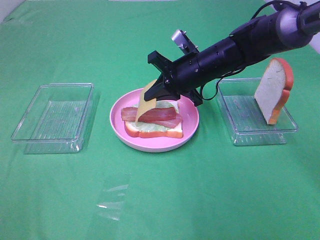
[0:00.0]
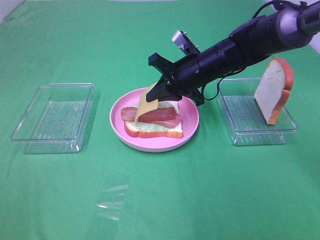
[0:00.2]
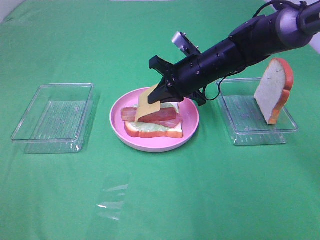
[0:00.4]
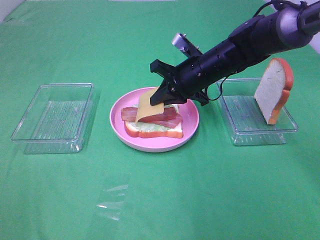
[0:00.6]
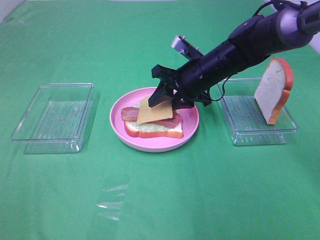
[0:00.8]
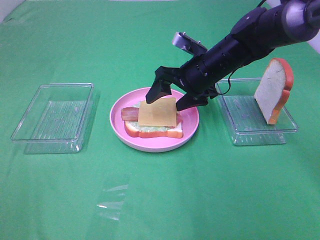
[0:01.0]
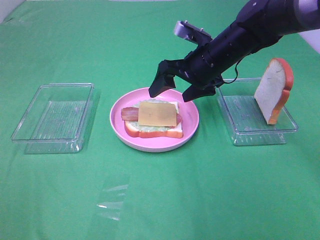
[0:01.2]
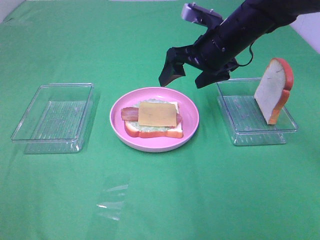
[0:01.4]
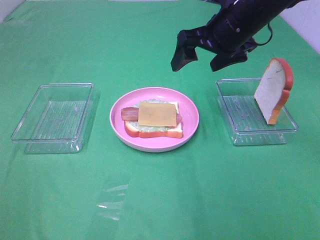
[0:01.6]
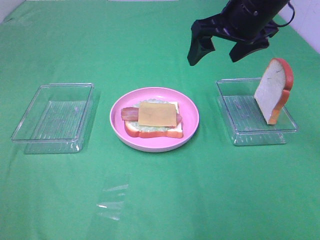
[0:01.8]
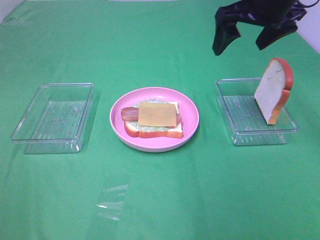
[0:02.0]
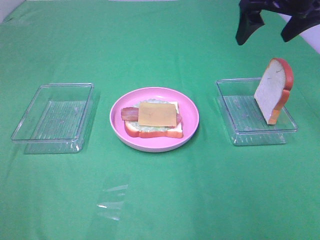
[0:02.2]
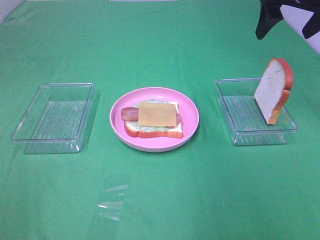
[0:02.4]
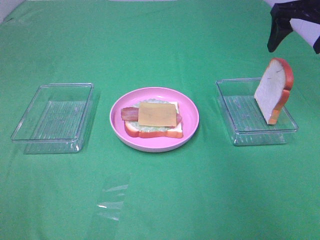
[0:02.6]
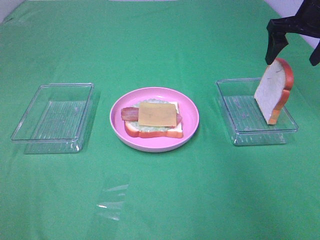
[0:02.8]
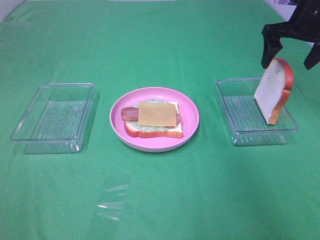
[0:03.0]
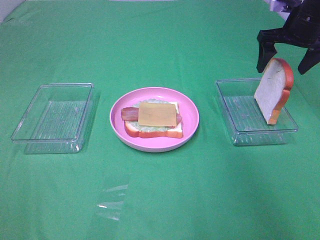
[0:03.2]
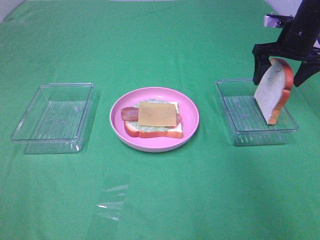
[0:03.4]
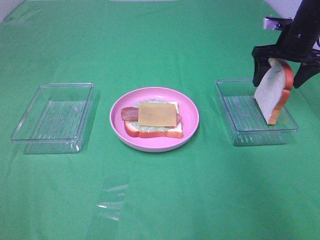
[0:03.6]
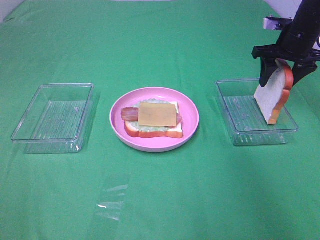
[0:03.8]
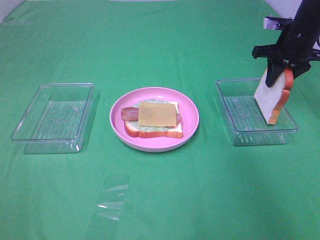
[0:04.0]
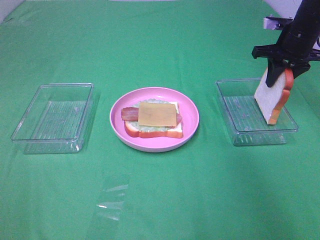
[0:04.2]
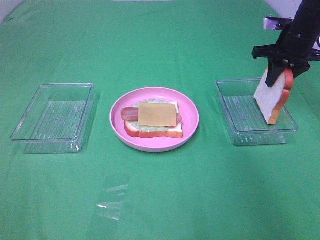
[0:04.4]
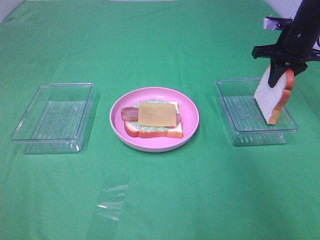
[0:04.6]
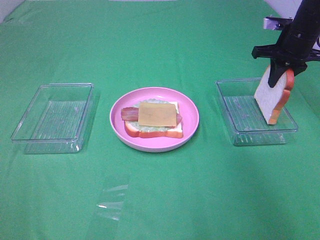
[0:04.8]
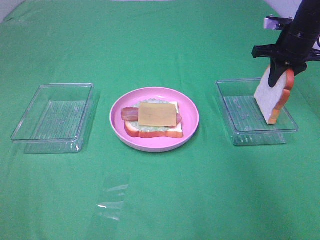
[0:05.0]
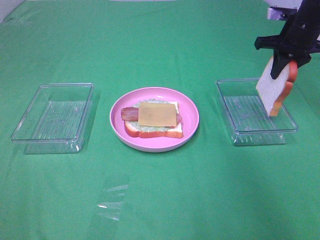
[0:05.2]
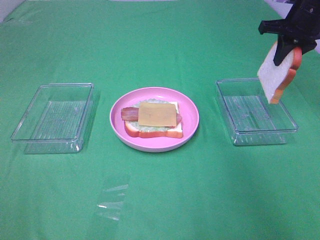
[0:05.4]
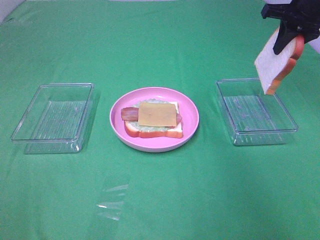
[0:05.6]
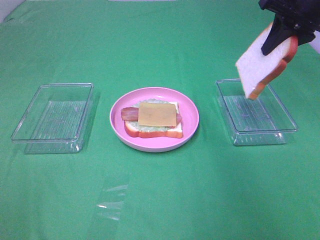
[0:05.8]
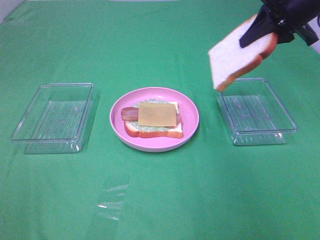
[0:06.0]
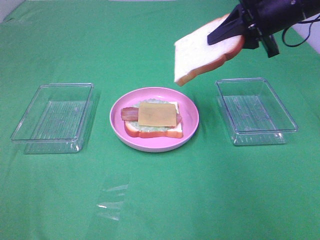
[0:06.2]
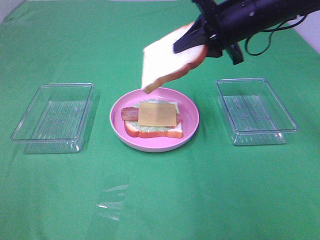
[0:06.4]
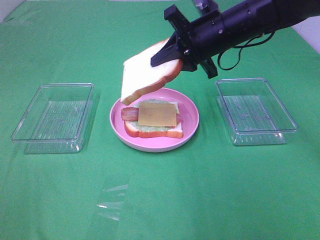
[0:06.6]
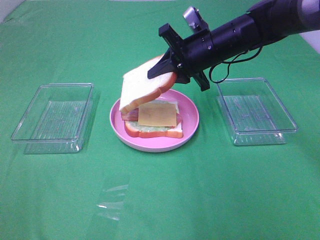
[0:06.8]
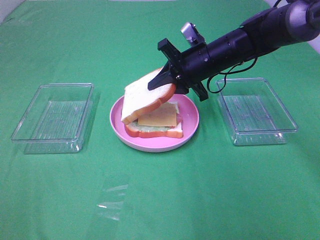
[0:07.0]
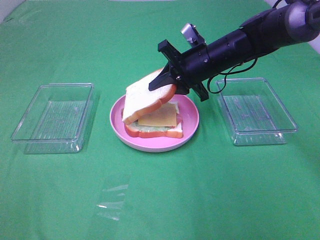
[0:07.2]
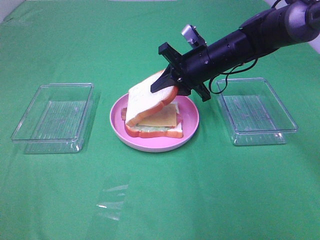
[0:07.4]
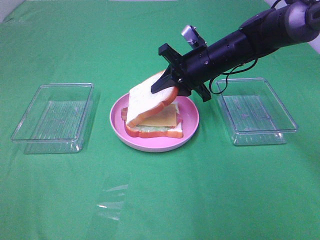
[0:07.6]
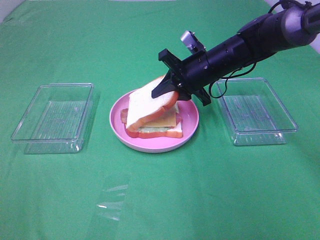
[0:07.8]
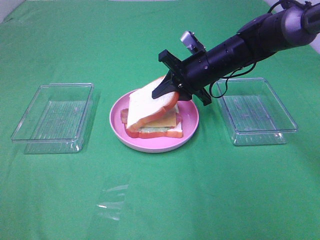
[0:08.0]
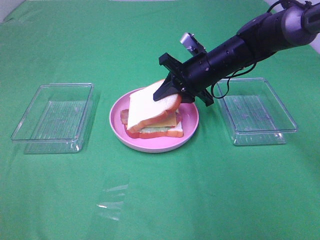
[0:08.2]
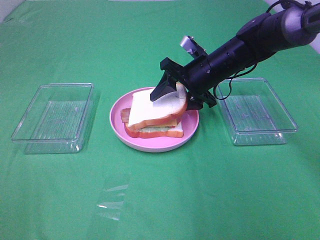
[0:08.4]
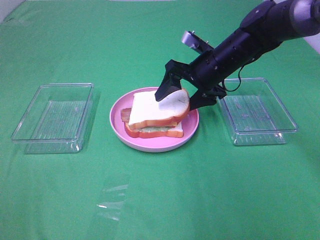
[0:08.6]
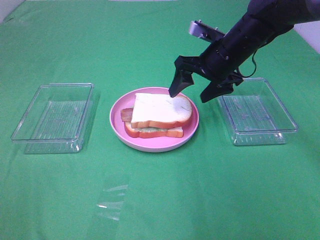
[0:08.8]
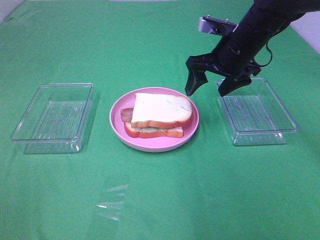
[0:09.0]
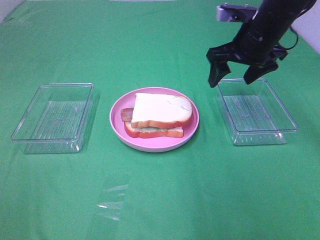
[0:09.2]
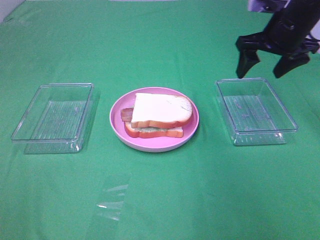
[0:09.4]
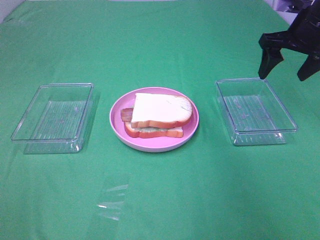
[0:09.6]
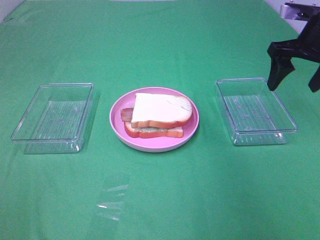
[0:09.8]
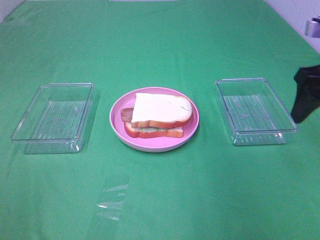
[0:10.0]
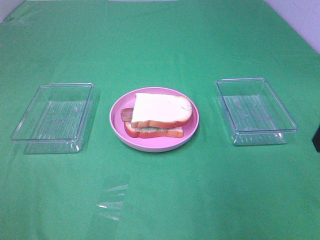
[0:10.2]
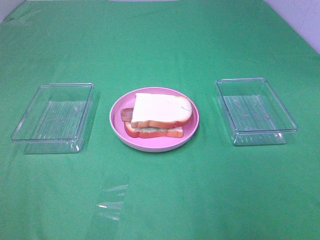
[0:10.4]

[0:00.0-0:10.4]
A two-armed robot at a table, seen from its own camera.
Task of the whole recording: Make sandwiches.
Step, 0:01.4 to 0:04.8: Right hand:grab the bread slice.
Step, 0:05.0 to 0:08.8: Right hand:place the bread slice on the cheese slice.
0:00.0 to 0:01.4: The right gripper moves upward, about 5 cm, and opens.
0:01.4 to 0:03.0: The right gripper moves to the right, about 15 cm.
0:03.0 to 0:04.4: The right gripper heads downward, covering approximately 5 cm, and closes up.
0:04.4 to 0:06.0: The right gripper goes some 15 cm upward, backward and to the left.
0:06.0 to 0:07.4: The right gripper shifts about 20 cm downward and to the left.
0:07.4 to 0:09.0: The right gripper changes place by some 5 cm, and opens up.
0:09.0 to 0:10.4: The right gripper travels backward and to the right by some 30 cm.

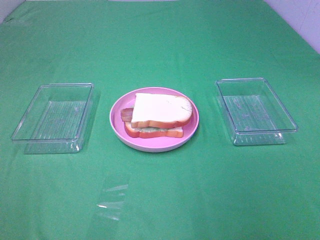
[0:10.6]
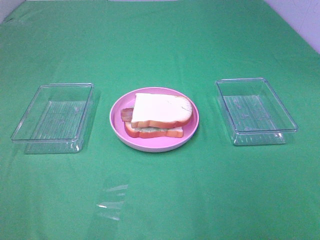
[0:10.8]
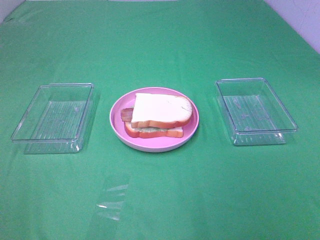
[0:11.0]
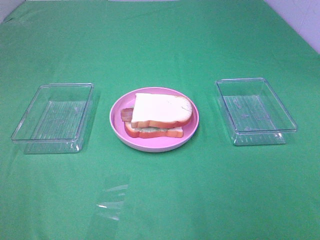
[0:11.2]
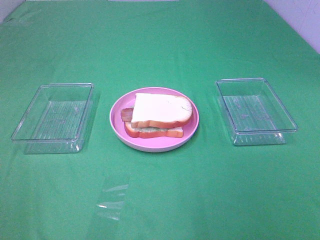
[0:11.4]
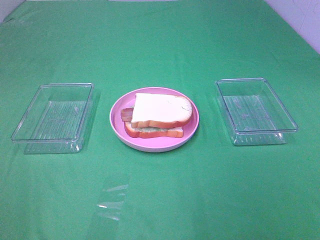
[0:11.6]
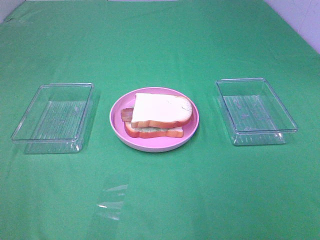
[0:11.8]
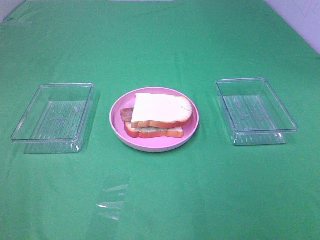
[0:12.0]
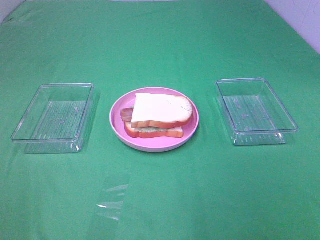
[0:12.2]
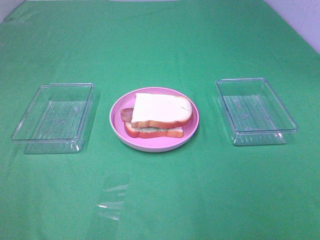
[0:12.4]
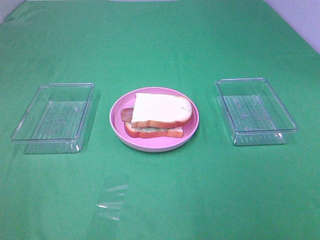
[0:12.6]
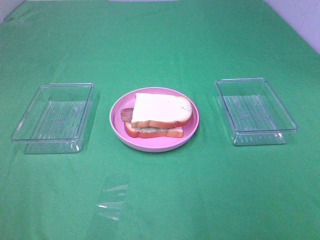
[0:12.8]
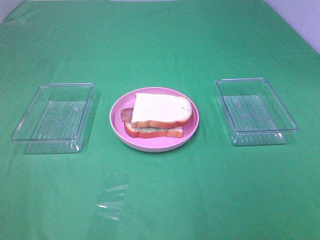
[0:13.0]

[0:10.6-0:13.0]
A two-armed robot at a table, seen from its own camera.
Task of the whole recording: Make sandwiches.
0:11.8 to 0:13.0: Both grippers stay put.

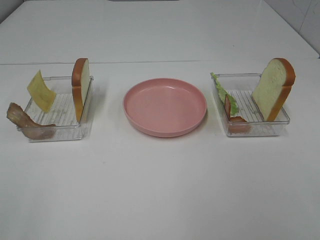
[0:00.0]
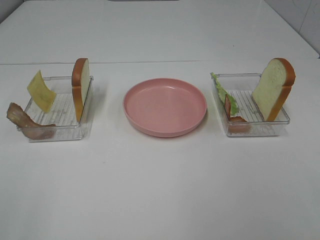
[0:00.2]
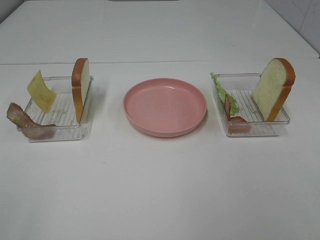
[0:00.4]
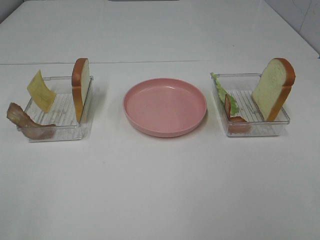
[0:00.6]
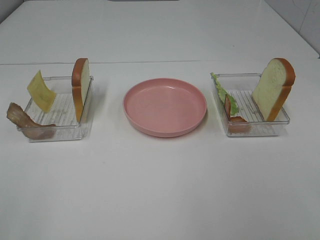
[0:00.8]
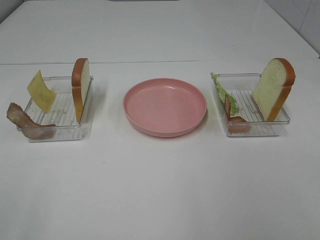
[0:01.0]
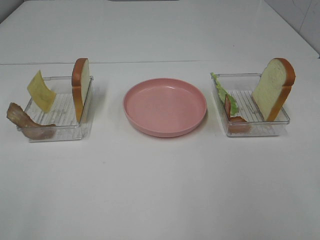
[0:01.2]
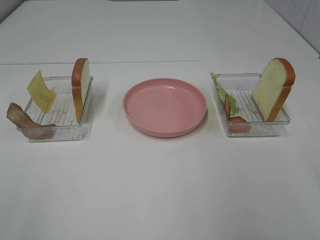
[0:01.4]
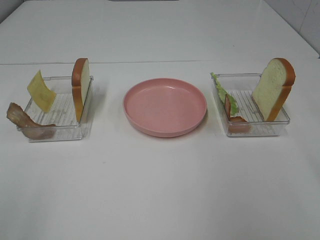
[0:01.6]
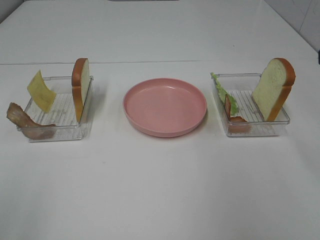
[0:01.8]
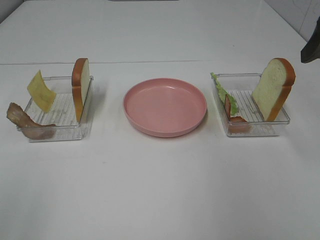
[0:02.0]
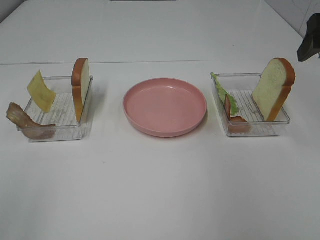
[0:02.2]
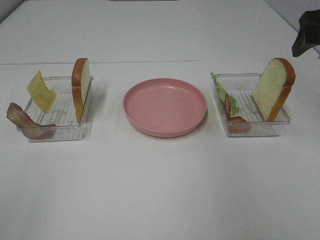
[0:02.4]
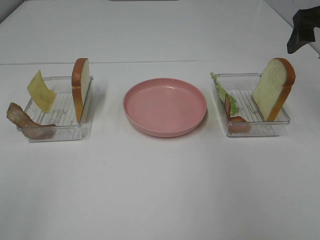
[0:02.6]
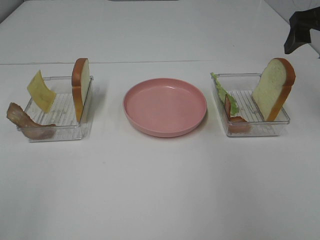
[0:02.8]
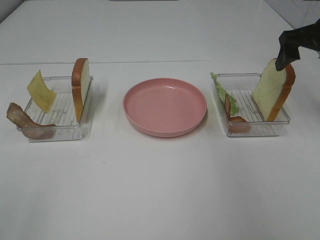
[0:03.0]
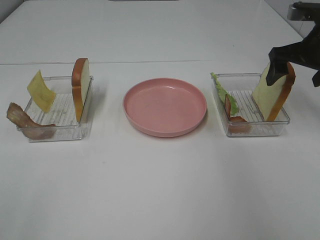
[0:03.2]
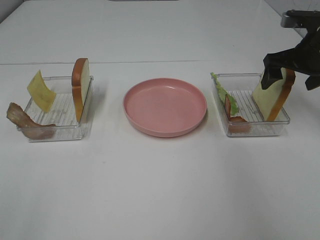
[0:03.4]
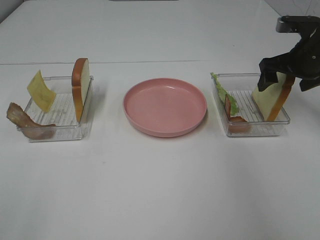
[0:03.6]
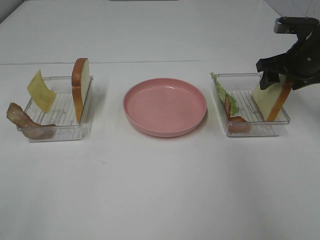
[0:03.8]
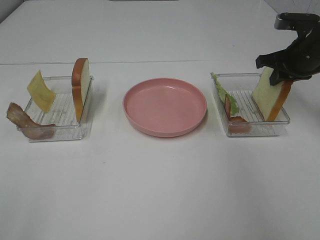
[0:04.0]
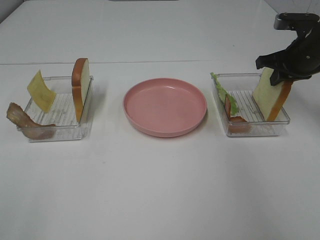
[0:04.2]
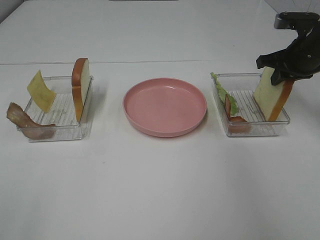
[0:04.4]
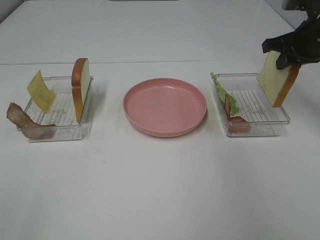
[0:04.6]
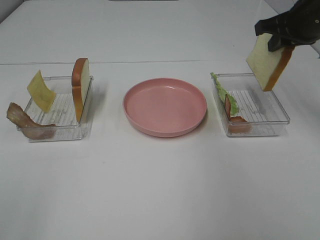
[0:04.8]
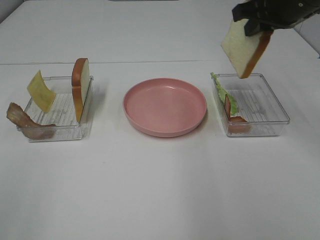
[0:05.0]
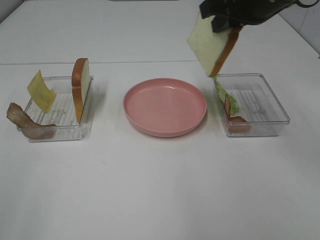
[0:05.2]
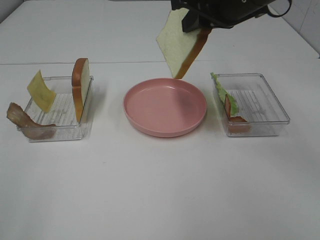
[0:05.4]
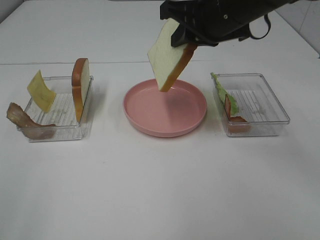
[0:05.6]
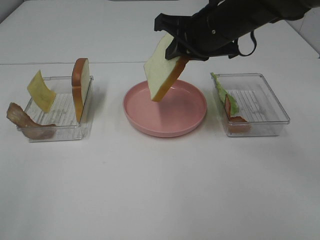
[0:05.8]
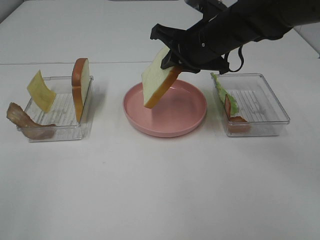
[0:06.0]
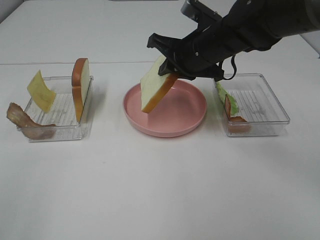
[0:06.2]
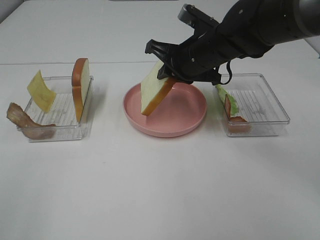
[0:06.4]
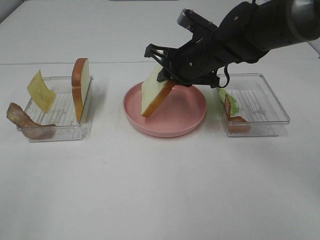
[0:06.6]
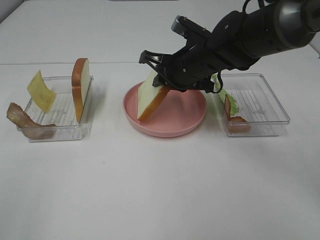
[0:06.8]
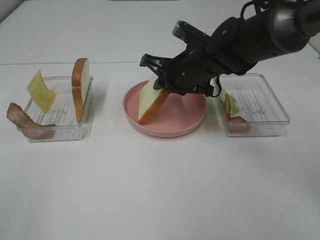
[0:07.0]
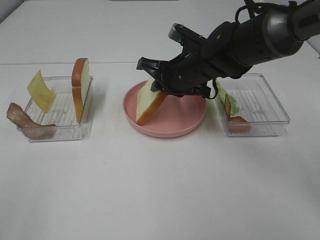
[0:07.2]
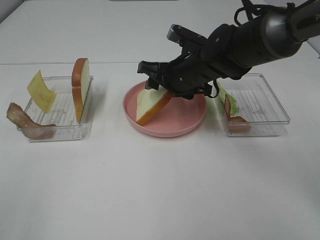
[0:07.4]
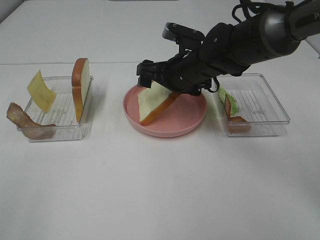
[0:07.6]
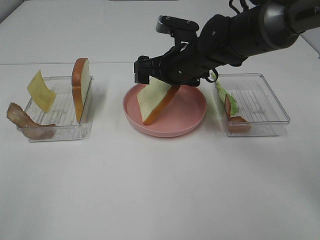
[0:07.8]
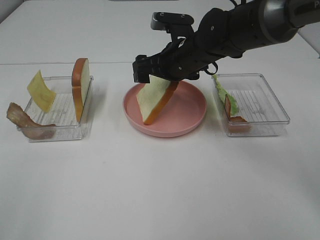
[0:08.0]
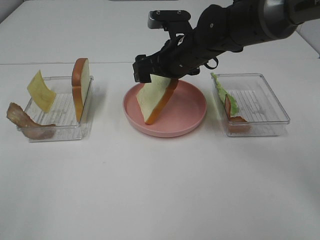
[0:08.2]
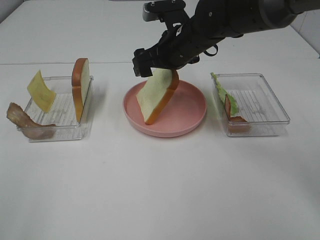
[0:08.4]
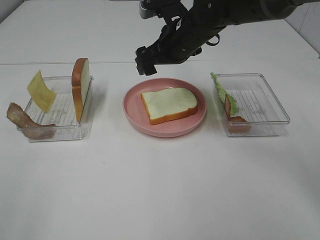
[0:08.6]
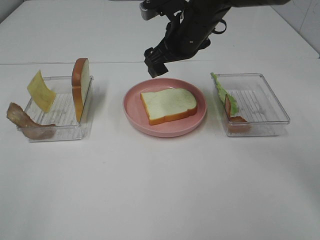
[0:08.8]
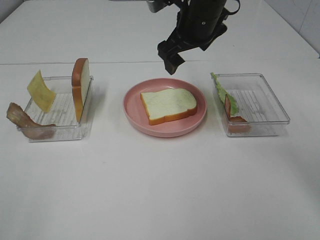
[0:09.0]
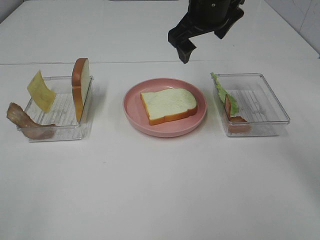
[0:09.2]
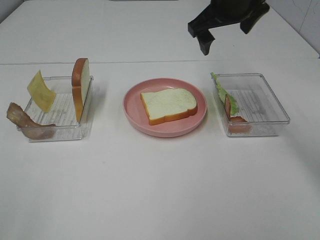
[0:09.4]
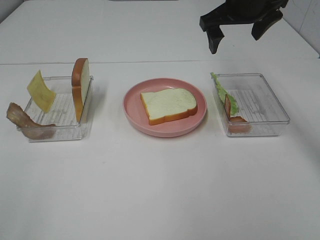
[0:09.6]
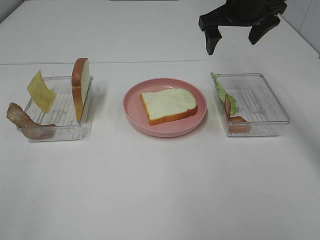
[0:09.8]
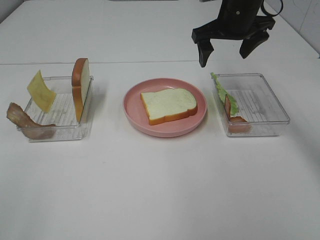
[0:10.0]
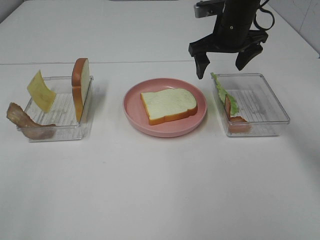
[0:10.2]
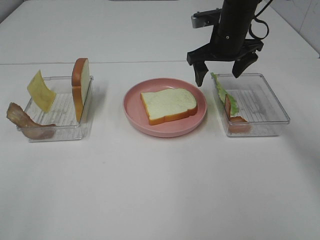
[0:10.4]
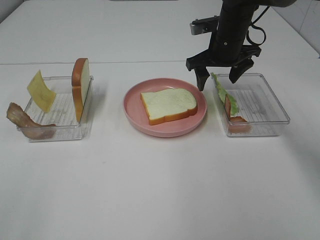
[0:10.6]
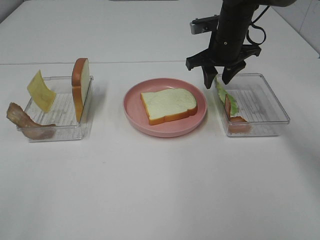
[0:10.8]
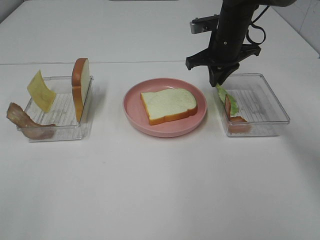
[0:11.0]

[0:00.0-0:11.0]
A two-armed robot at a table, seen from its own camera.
Task of the whole recording: Make sandwiches.
Step, 0:00.0 to 0:04.0: Right hand:grab the bread slice.
Step, 0:04.2 to 0:08.6: Right hand:place the bread slice on the plate.
0:01.6 to 0:03.2: The right gripper heads forward and downward, covering roughly 25 cm.
0:03.2 to 0:04.8: The right gripper shifts about 5 cm upward, and closes.
0:04.8 to 0:06.2: The right gripper moves to the left and downward, some 20 cm.
0:06.2 to 0:07.8: The right gripper opens.
0:07.8 to 0:09.4: The right gripper shifts approximately 15 cm upward and to the right.
0:09.4 to 0:11.0: The right gripper is displaced downward by about 10 cm, and closes its fingers.
